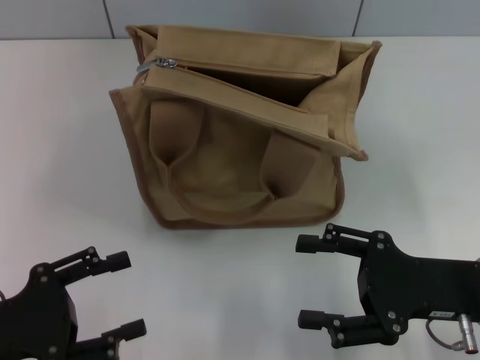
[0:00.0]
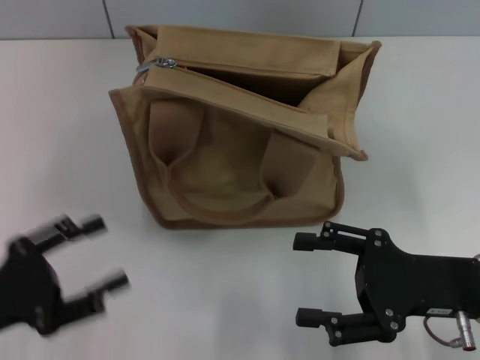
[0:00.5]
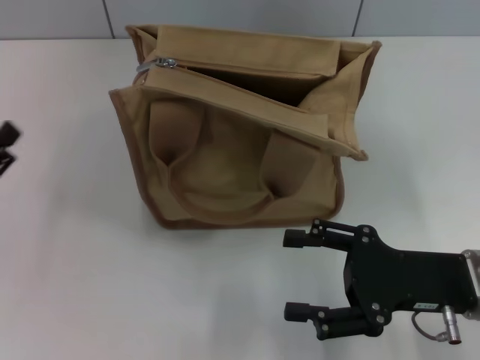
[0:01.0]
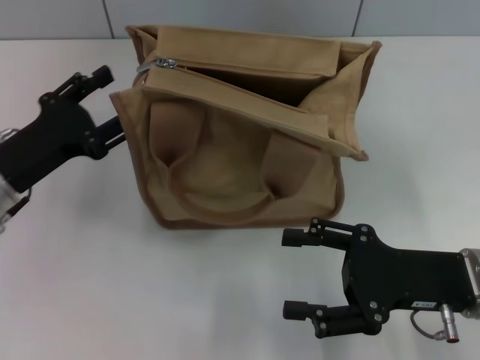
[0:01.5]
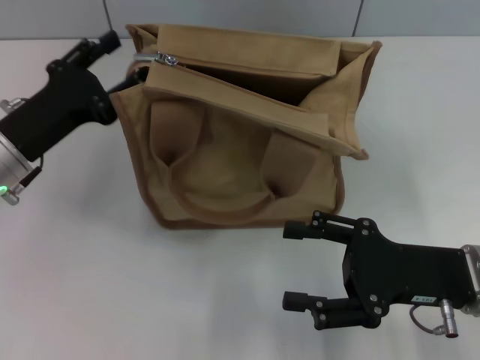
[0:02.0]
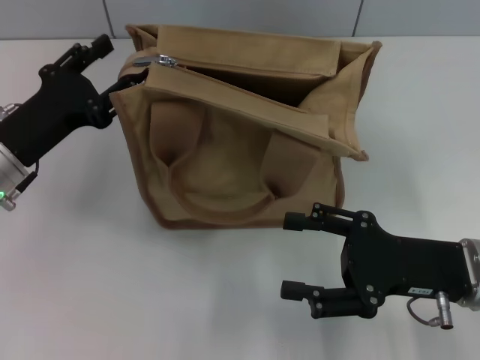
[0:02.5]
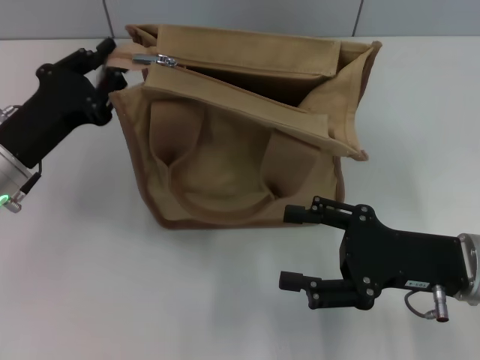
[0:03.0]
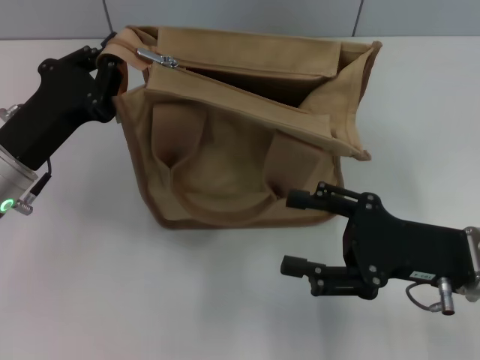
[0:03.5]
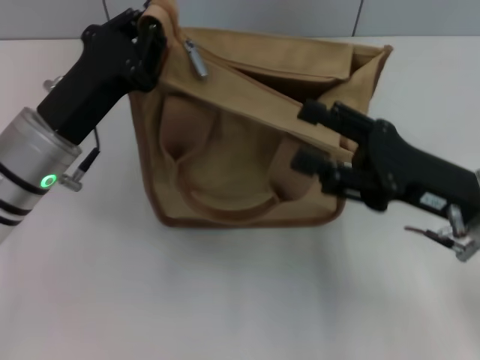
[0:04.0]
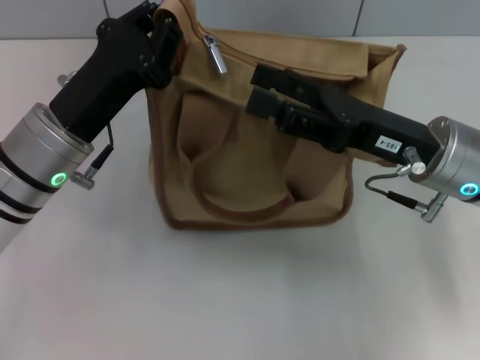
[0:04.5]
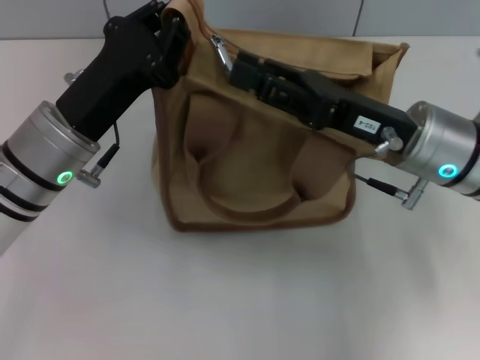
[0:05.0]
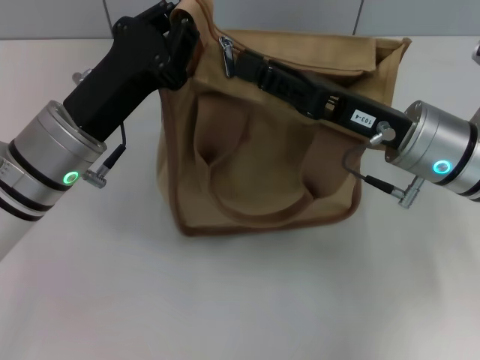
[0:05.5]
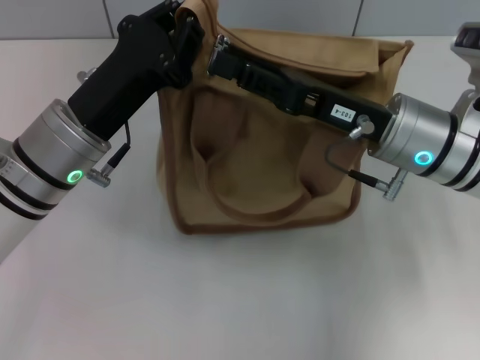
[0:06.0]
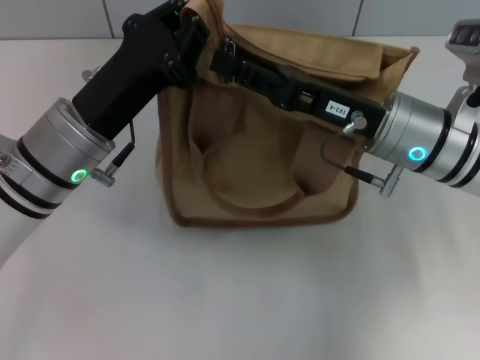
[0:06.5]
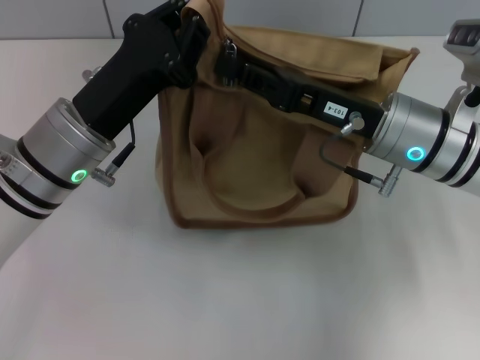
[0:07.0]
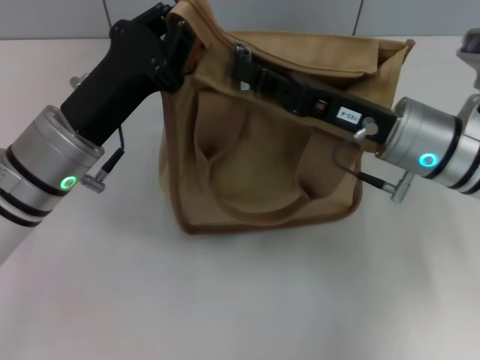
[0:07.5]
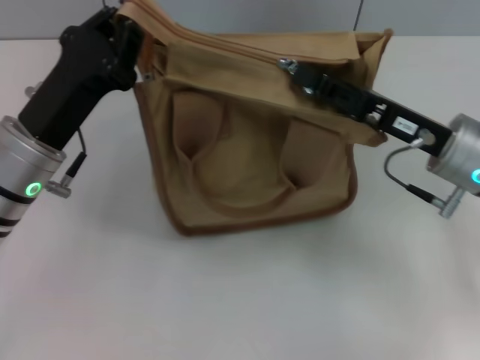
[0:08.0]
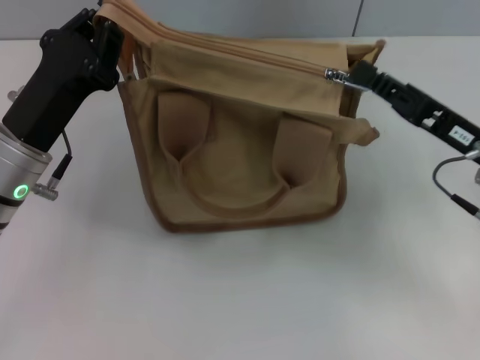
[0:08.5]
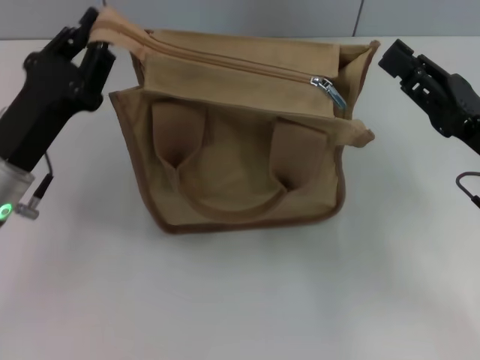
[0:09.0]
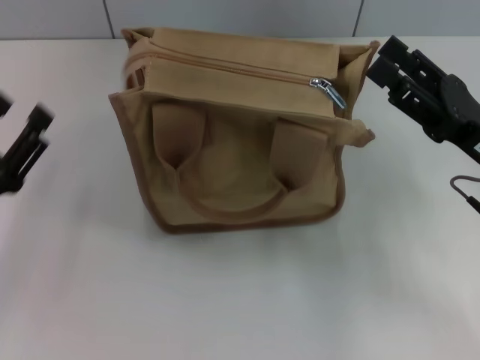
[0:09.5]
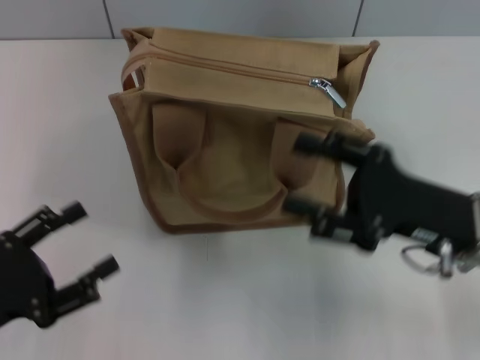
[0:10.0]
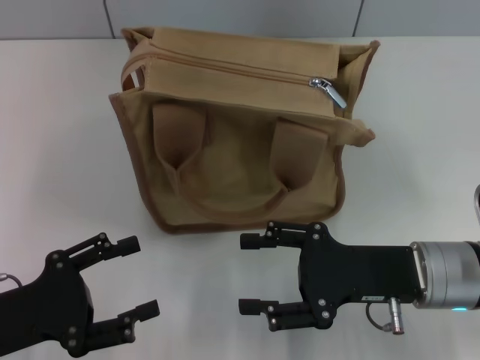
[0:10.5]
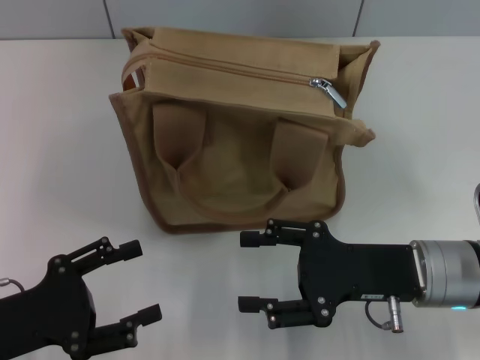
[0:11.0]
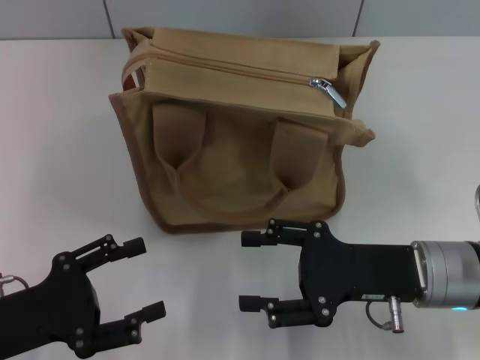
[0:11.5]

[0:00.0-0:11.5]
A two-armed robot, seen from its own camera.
Step, 0:00.0 to 0:08.5: Pull up the zipper with your right hand.
0:00.0 to 0:02.0: The left gripper is displaced forward by about 15 cm.
0:02.0 to 0:04.0: The left gripper is displaced to the right by approximately 5 cm, and closes.
0:04.0 to 0:06.0: The right gripper travels forward and to the left by roughly 10 cm, and closes.
0:06.0 to 0:07.5: The right gripper closes its fingers.
0:07.5 to 0:09.5: The left gripper is displaced to the left, backward and downward by approximately 15 cm, and opens up. The right gripper goes approximately 10 cm to the right and backward, and opens.
0:09.5 to 0:11.5: The left gripper opens its fingers. The right gripper is displaced to the left by roughly 5 cm.

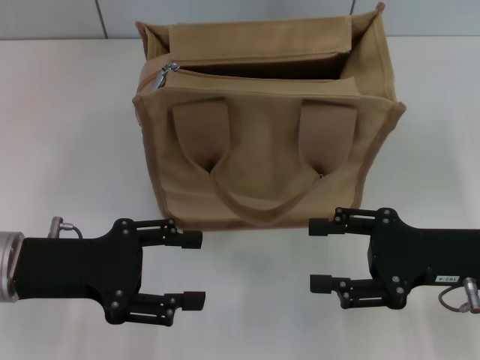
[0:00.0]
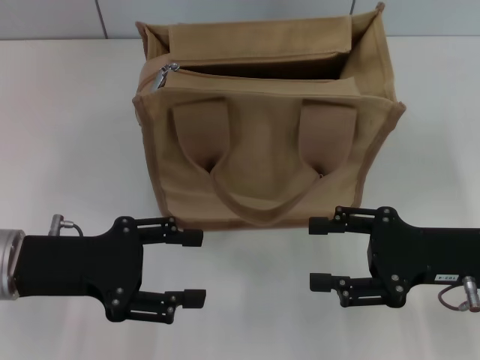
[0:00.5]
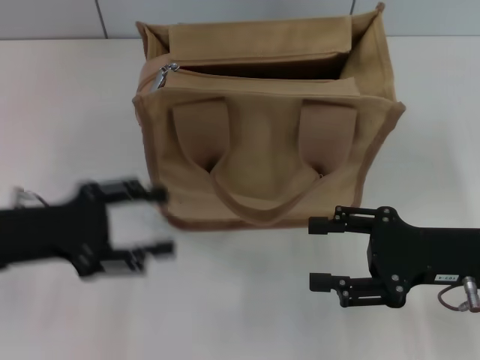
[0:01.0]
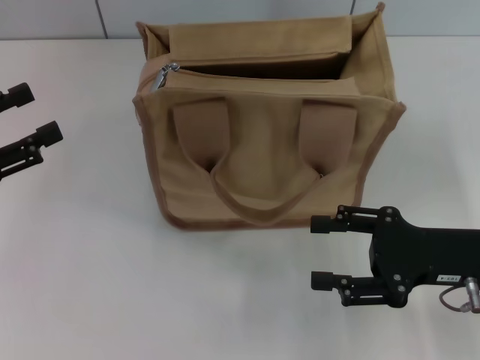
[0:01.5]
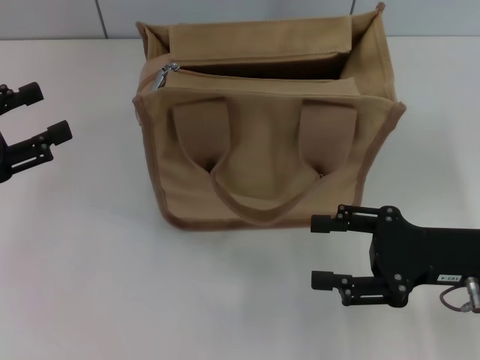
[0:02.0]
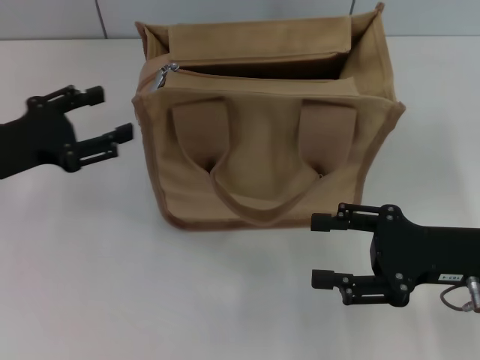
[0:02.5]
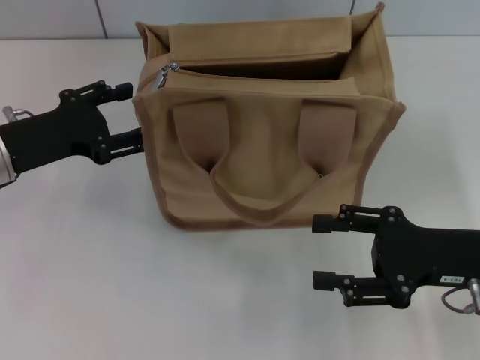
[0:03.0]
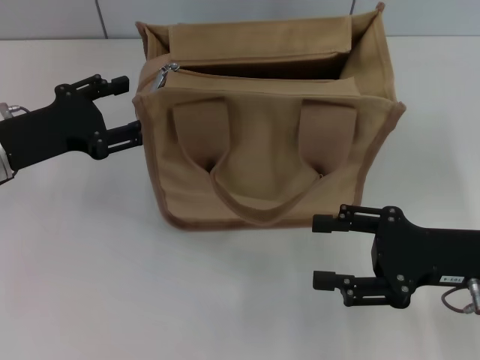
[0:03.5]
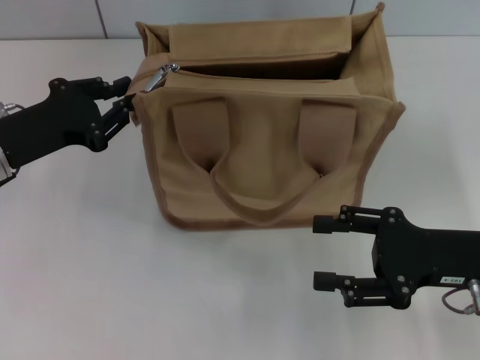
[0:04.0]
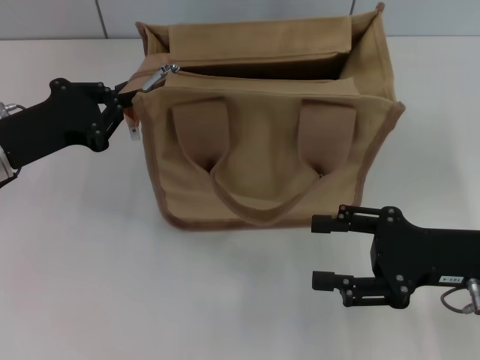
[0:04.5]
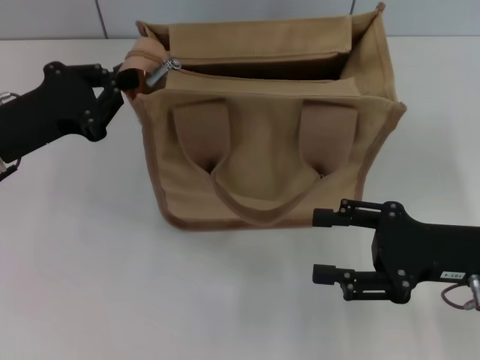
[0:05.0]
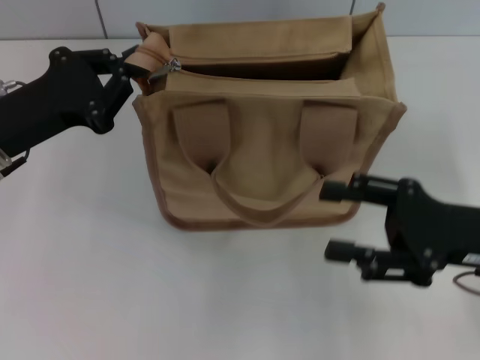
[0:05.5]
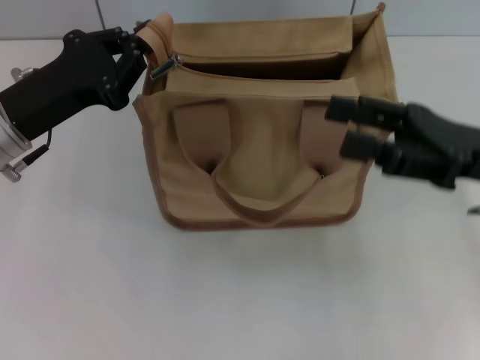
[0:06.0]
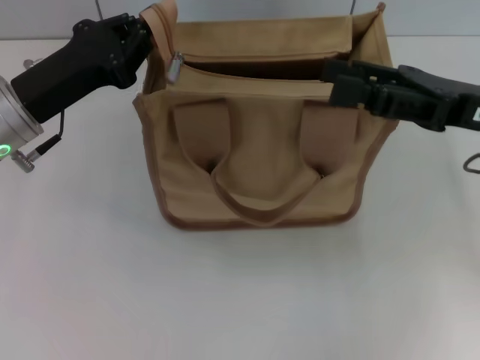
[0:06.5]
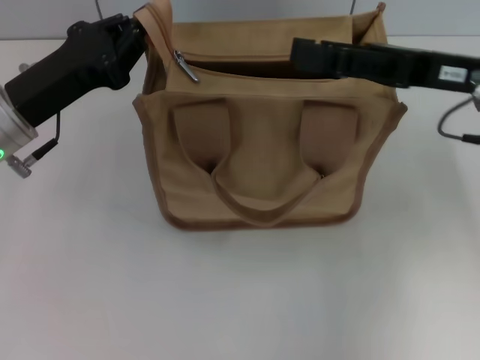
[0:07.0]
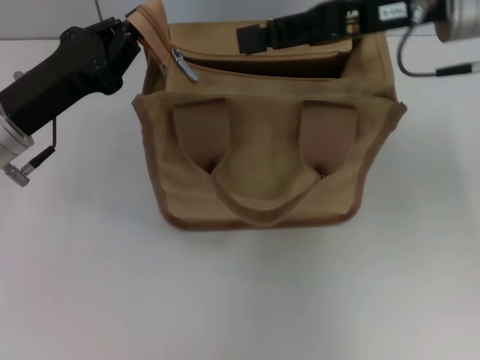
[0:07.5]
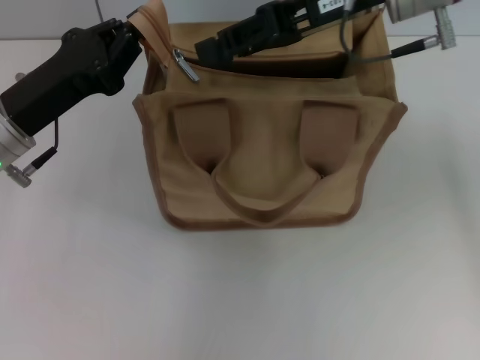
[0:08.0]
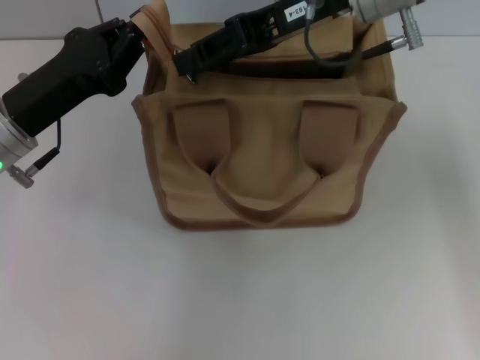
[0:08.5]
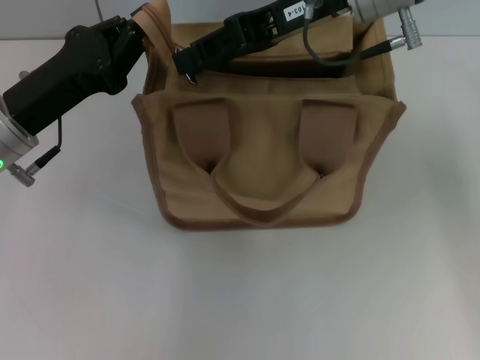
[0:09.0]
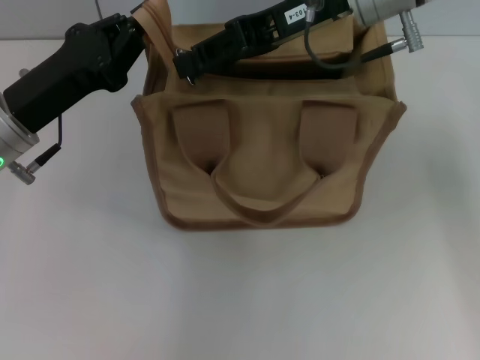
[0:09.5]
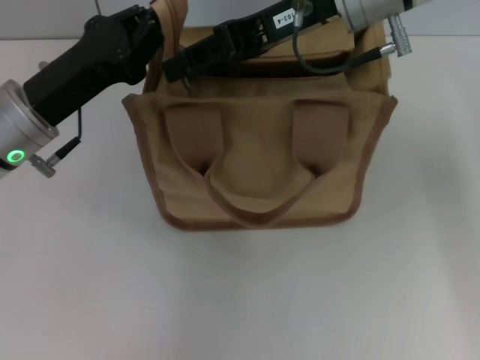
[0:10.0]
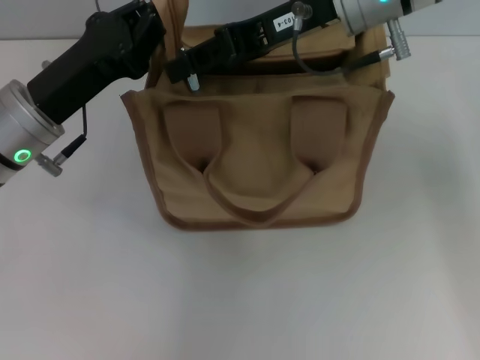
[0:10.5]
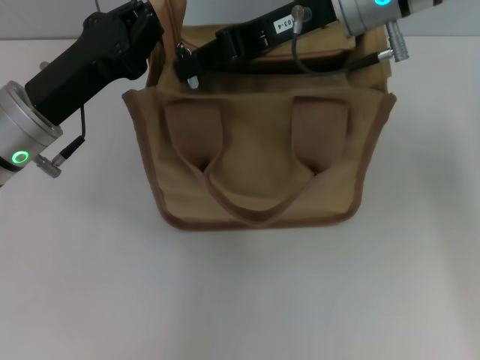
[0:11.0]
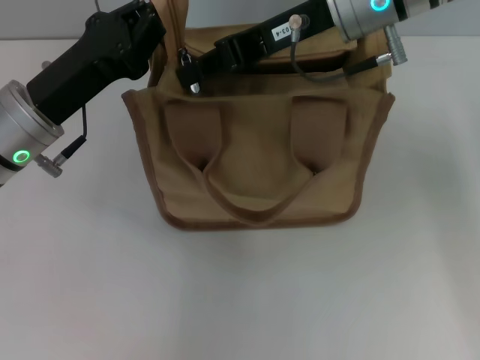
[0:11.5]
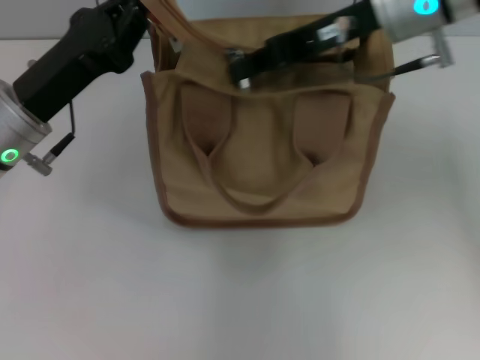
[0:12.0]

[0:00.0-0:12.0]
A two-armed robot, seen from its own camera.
0:00.0 to 0:02.0: The left gripper goes about 10 cm to the left.
0:02.0 to 0:04.0: The left gripper travels to the right and forward by approximately 10 cm.
0:04.0 to 0:06.0: The left gripper closes. The right gripper goes roughly 5 cm upward.
0:06.0 to 0:08.0: The right gripper moves forward, to the left and upward, approximately 20 cm, and closes up.
0:08.0 to 0:10.0: The grippers make only small movements.
0:10.0 to 0:12.0: The right gripper closes.

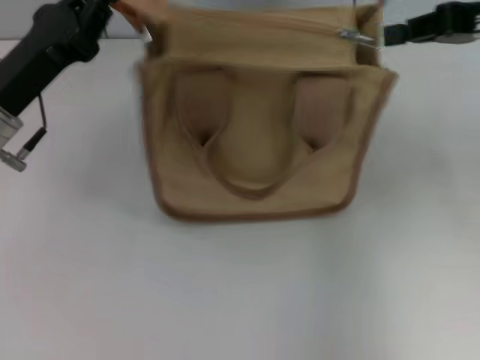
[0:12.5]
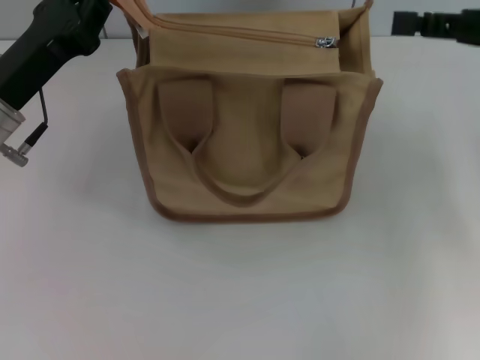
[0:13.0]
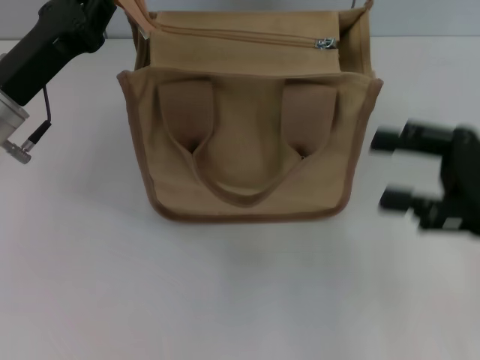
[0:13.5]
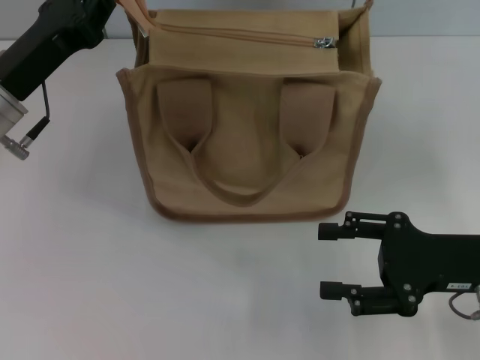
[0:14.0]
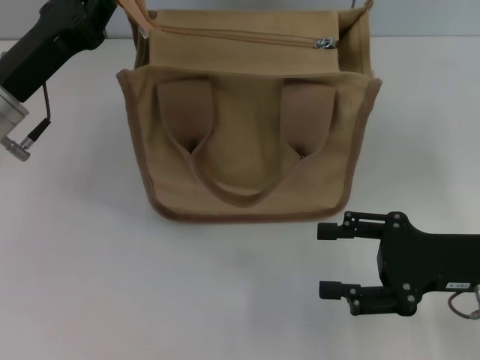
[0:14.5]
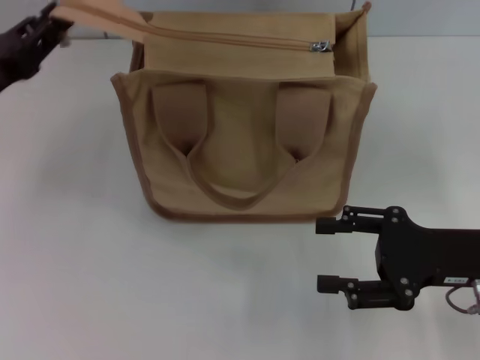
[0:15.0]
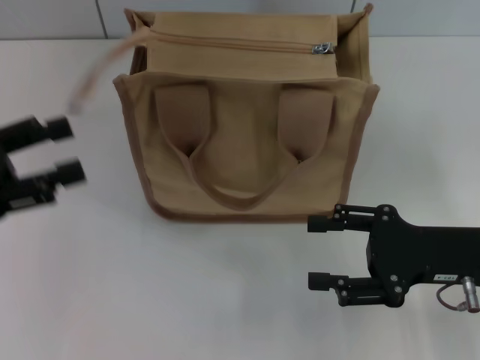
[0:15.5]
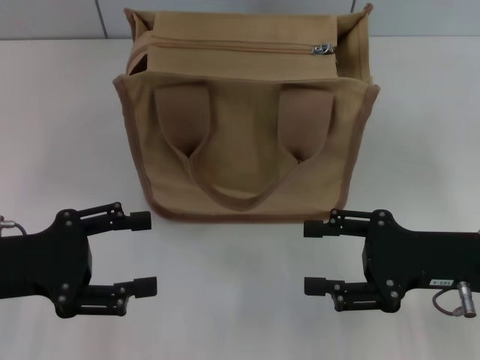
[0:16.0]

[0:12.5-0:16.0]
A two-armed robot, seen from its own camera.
Step, 0:13.0 to 0:15.0: Grab the zipper with your left hand.
0:12.5 to 0:14.5: The right gripper goes approximately 20 cm downward and backward, and opens its fingers.
0:14.5 to 0:16.0: The left gripper shifts about 10 cm backward, and opens its fingers.
